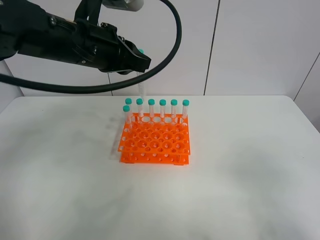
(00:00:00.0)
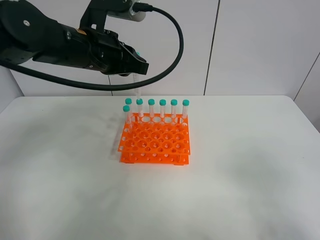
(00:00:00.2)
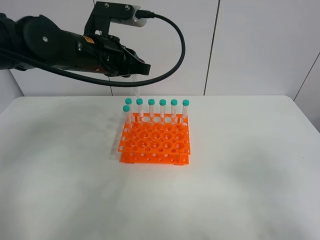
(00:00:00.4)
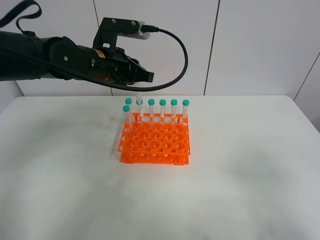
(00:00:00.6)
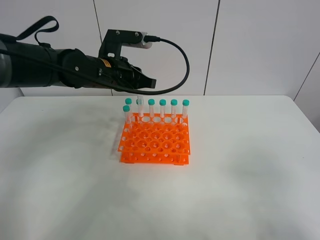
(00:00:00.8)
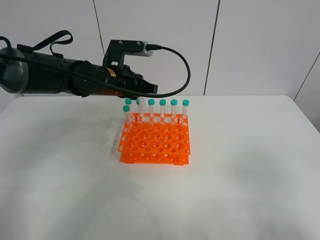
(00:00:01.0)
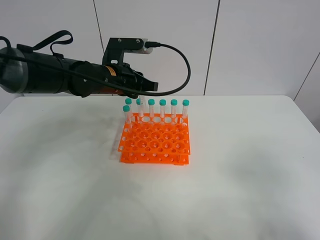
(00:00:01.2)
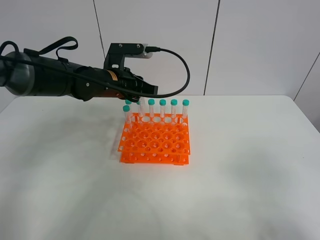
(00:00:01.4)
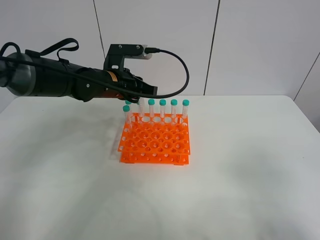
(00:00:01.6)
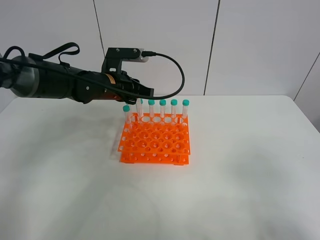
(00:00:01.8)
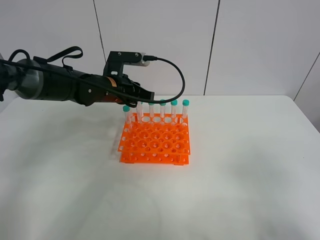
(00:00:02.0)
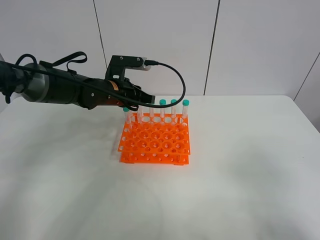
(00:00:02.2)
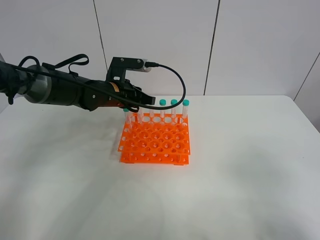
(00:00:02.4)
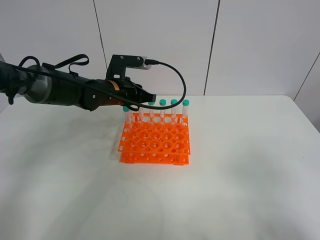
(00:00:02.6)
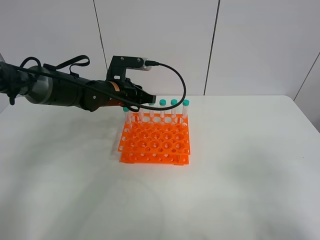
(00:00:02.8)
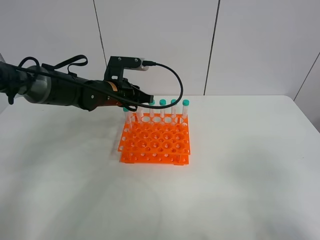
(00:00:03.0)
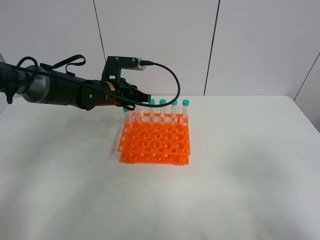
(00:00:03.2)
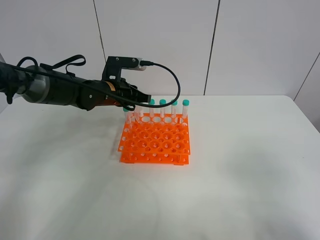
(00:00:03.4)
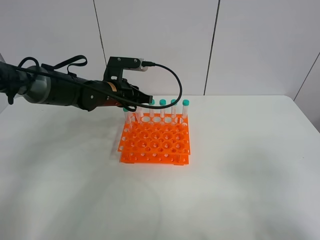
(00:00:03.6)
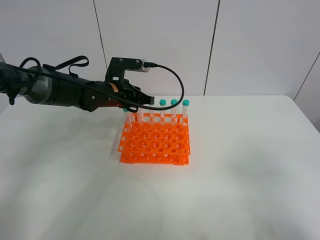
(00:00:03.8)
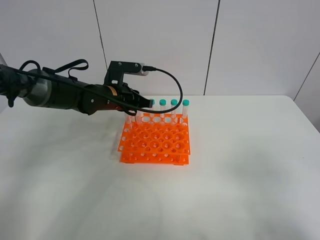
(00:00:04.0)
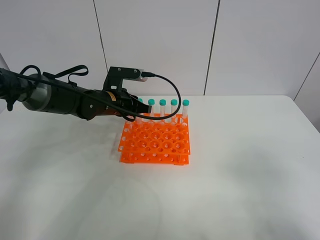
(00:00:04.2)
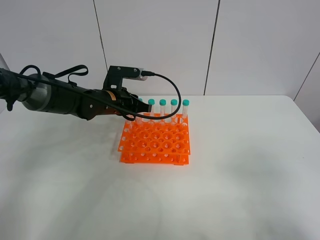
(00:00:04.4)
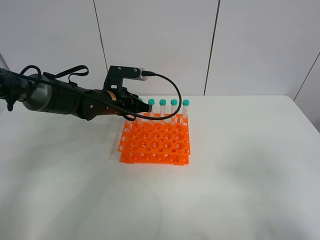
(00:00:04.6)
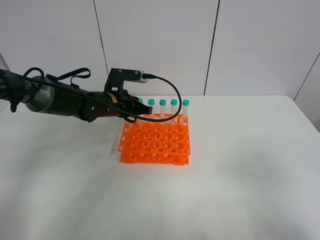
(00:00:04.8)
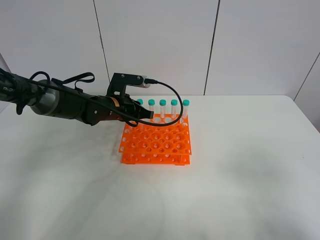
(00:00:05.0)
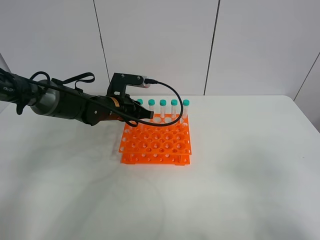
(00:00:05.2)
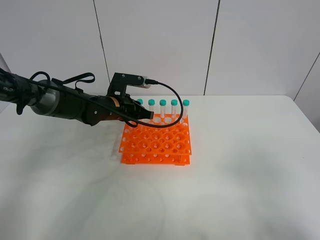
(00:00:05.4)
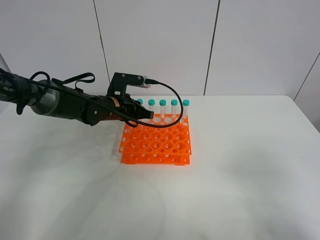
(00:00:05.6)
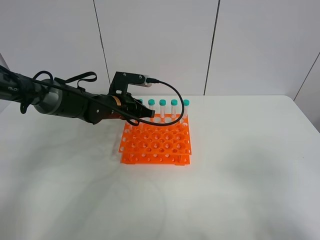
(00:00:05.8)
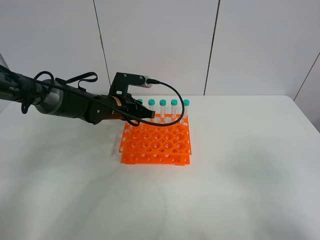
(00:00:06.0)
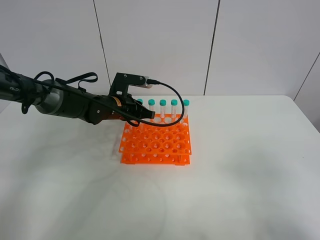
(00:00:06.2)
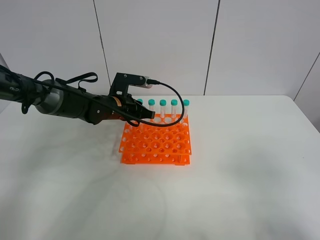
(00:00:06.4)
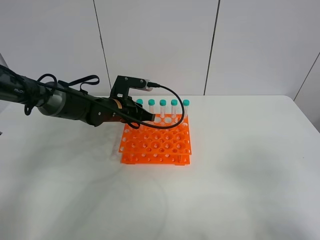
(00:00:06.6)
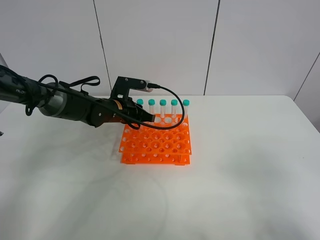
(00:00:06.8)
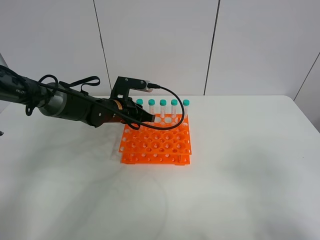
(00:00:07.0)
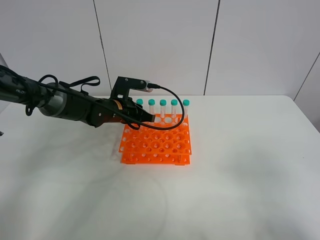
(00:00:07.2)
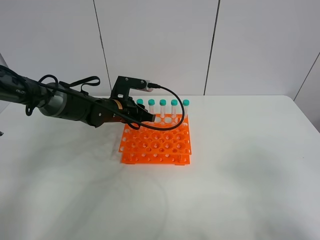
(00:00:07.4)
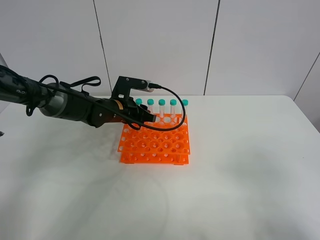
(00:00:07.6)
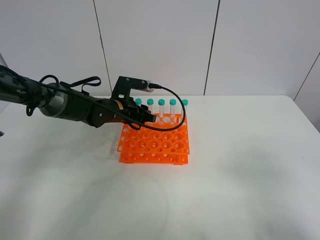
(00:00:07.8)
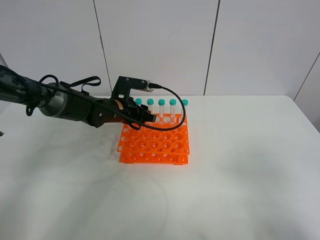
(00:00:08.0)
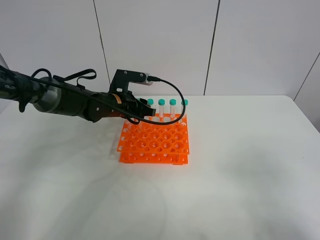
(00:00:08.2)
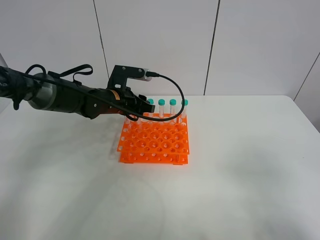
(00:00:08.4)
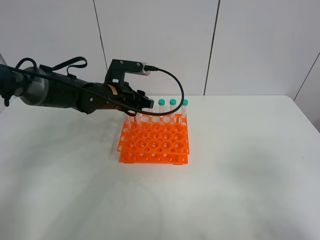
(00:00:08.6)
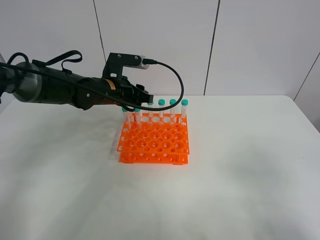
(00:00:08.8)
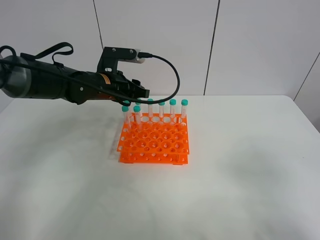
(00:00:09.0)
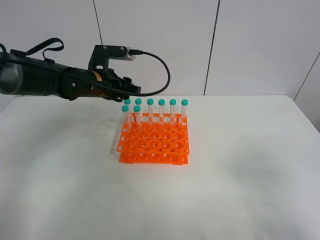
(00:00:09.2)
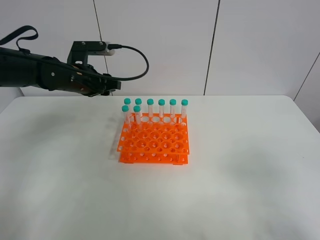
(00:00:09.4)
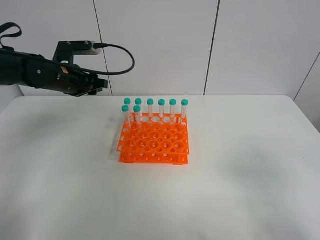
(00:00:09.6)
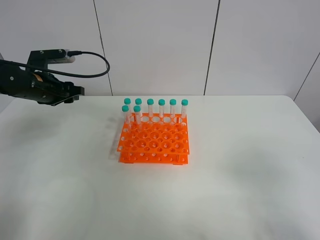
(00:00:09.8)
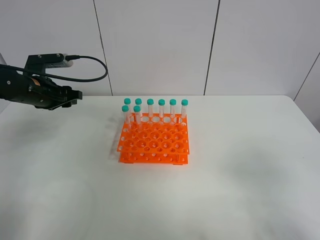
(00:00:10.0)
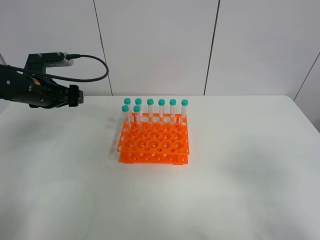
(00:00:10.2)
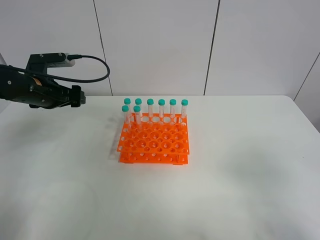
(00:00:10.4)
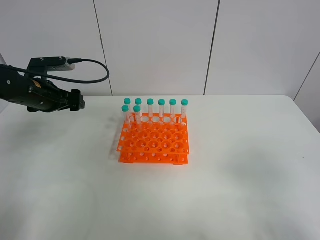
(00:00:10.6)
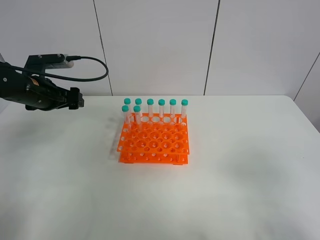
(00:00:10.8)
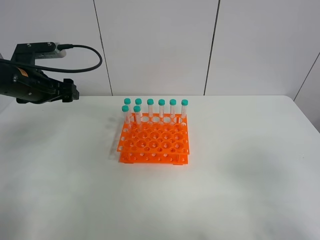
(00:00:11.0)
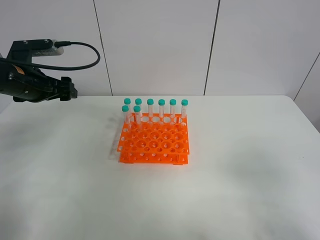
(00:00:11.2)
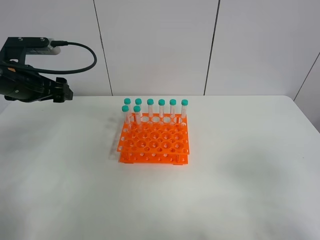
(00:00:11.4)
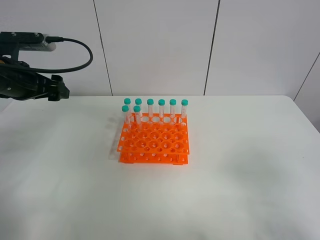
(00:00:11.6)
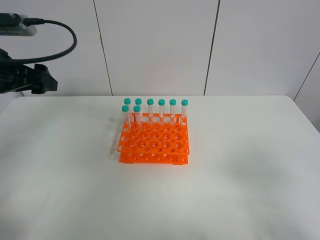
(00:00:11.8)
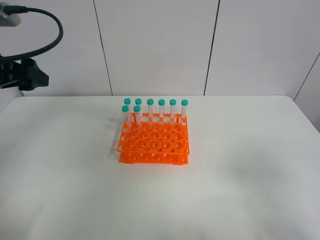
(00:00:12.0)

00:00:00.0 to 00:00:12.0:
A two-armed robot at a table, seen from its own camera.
Task of the whole recording: Put the test tube on the table back onto the test tube rack.
Step, 00:00:00.0 to 00:00:07.6: Place the test tube on the test tube rack with the left gripper.
00:00:00.0 to 00:00:01.6: The left gripper moves downward and forward, approximately 15 cm.
00:00:01.6 to 00:00:04.4: The grippers move only a little.
00:00:04.4 to 00:00:06.0: The grippers move only a little.
00:00:06.0 to 00:00:07.6: The left gripper opens.
00:00:07.6 to 00:00:09.0: The left gripper moves upward, about 10 cm.
00:00:09.0 to 00:00:10.4: The left gripper moves to the left, roughly 15 cm, and opens its fingers.
00:00:10.4 to 00:00:12.0: The left gripper goes about 20 cm backward and upward.

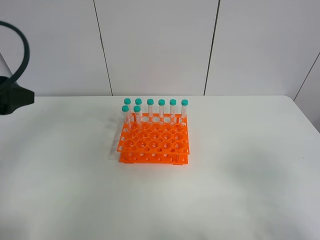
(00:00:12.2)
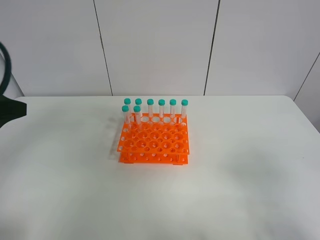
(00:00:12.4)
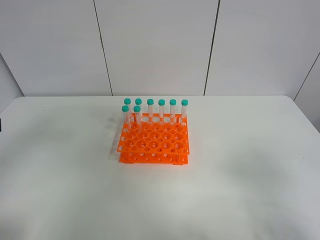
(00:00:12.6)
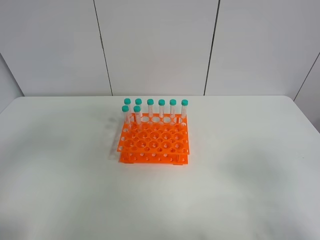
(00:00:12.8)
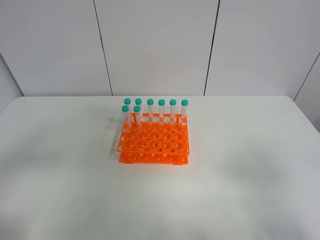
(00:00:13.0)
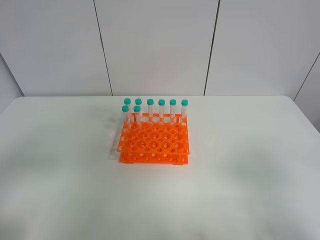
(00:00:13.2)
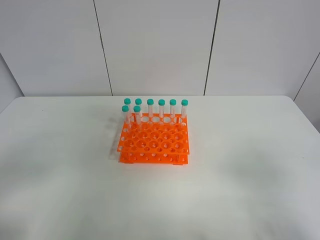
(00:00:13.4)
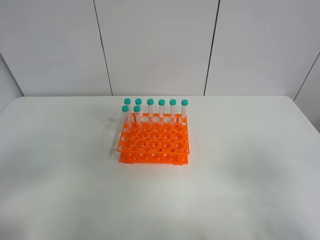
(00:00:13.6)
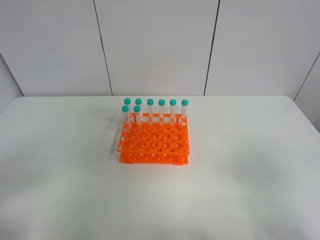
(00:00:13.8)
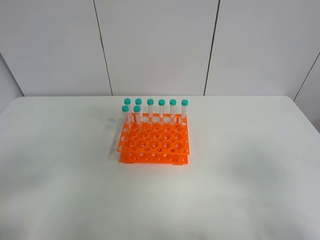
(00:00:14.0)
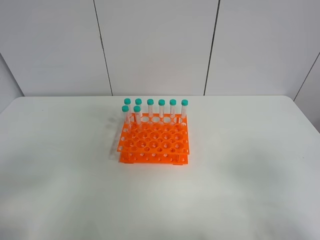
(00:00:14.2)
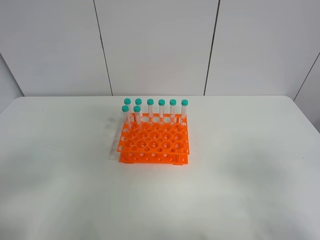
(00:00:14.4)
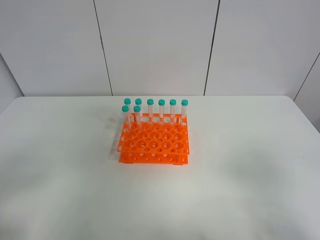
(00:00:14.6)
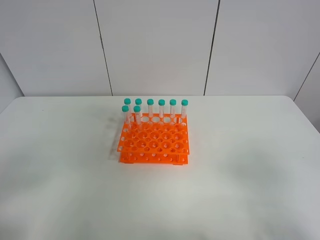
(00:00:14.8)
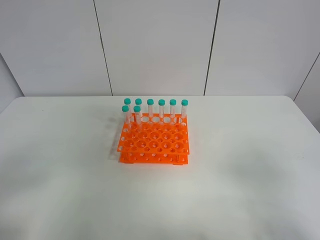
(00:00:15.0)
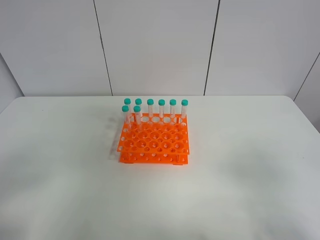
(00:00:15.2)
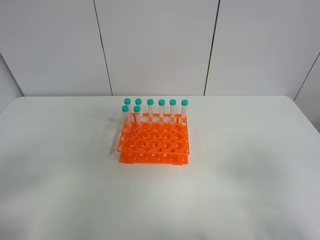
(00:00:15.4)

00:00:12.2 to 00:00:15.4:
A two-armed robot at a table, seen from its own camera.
Task of the whole recording: Put the test tube on the table back onto the test tube rack.
00:00:12.2 to 00:00:13.8: The left gripper is displaced backward by approximately 20 cm.
00:00:13.8 to 00:00:15.4: The two grippers keep their place.
